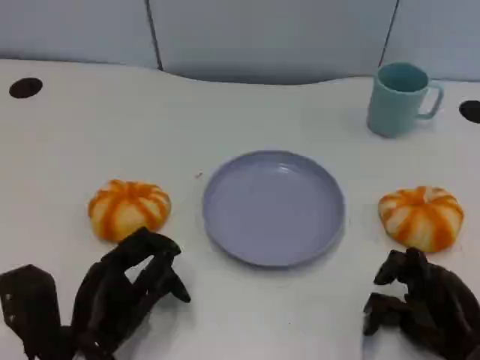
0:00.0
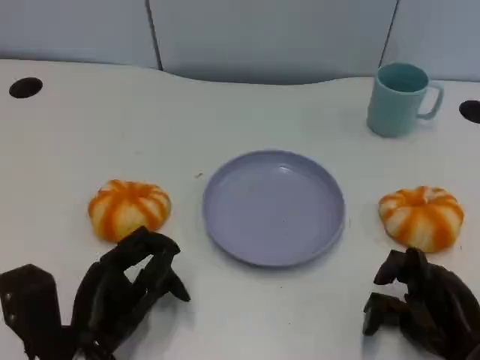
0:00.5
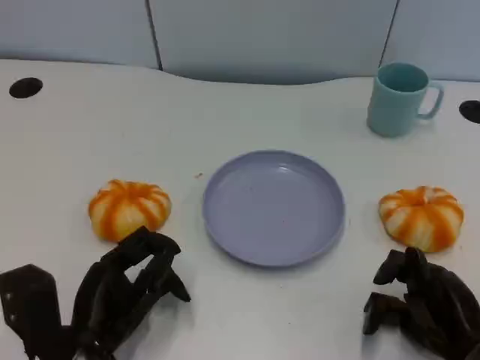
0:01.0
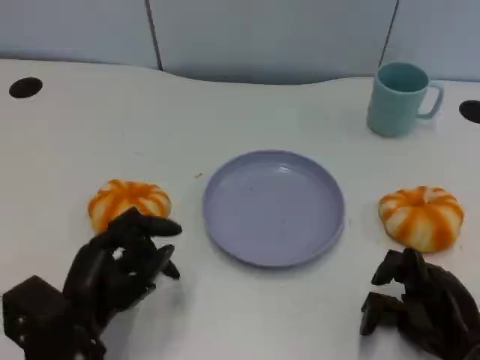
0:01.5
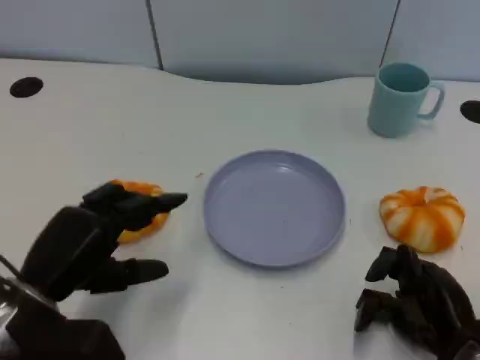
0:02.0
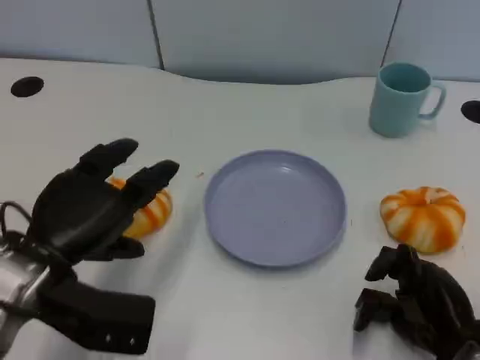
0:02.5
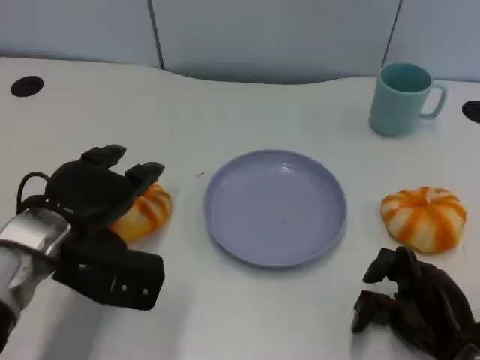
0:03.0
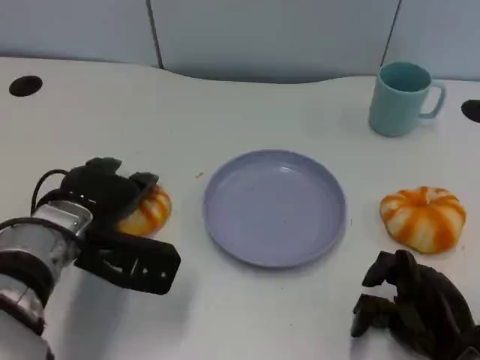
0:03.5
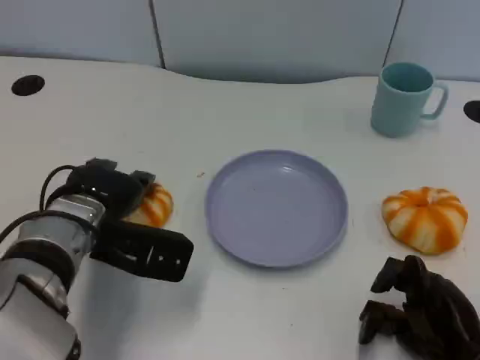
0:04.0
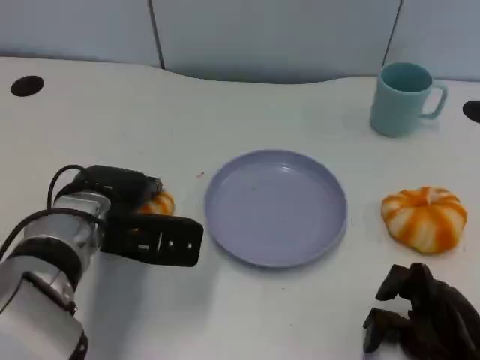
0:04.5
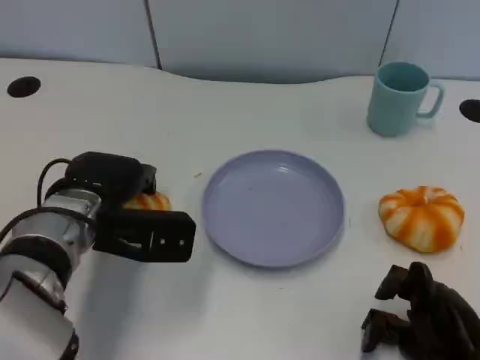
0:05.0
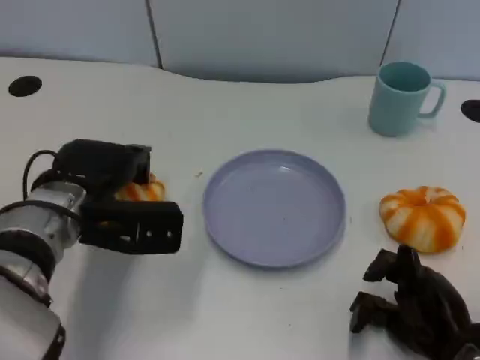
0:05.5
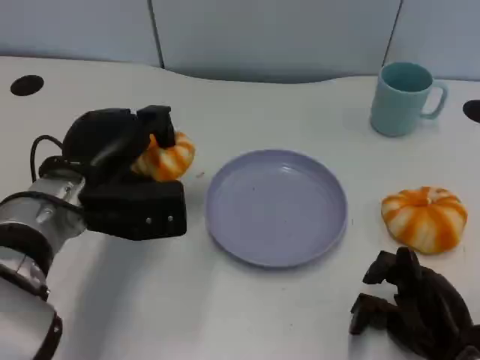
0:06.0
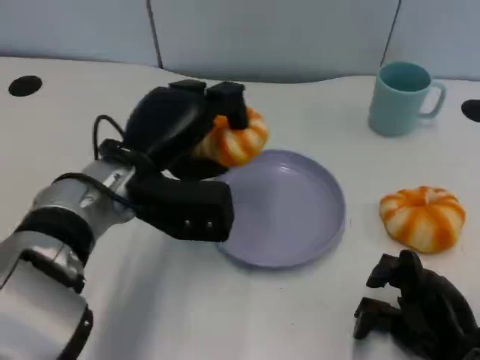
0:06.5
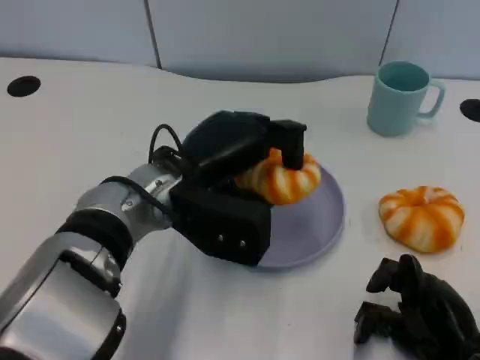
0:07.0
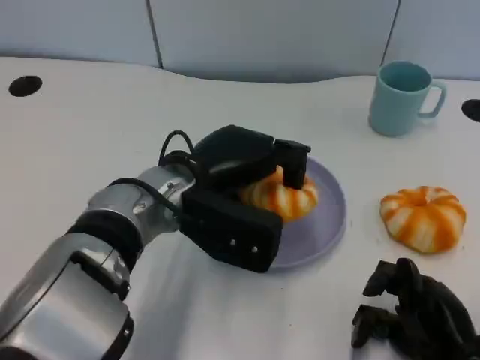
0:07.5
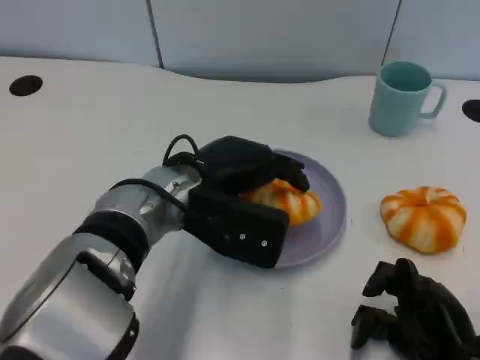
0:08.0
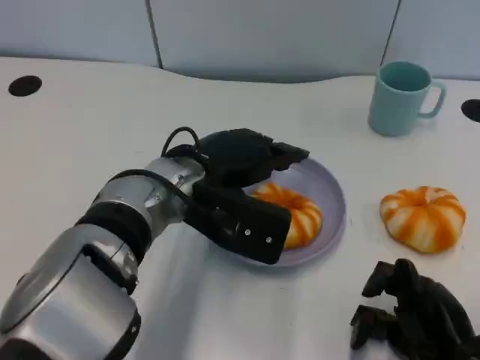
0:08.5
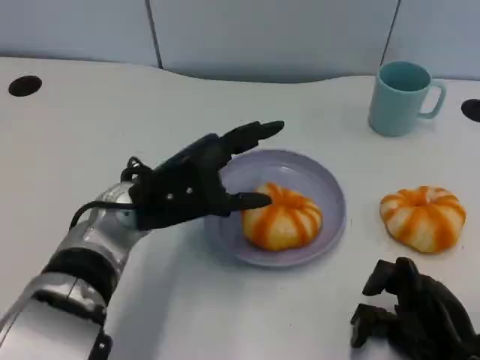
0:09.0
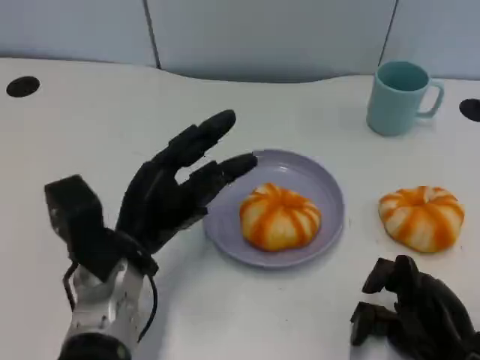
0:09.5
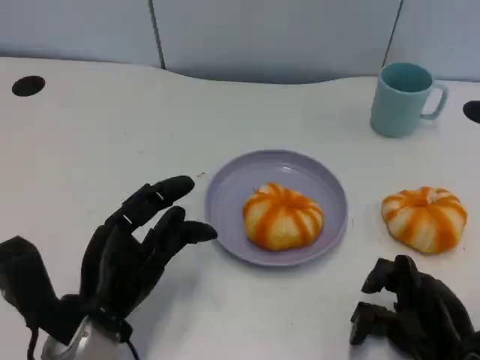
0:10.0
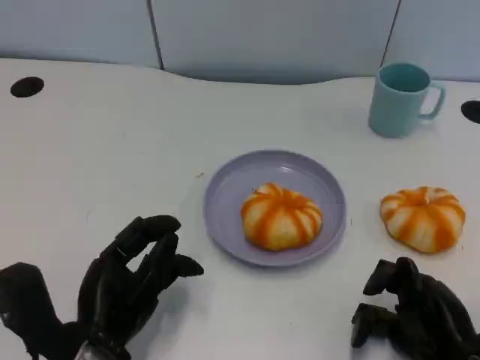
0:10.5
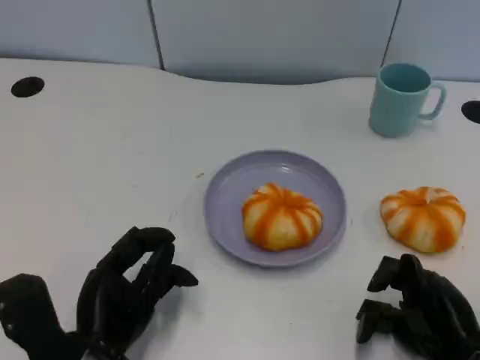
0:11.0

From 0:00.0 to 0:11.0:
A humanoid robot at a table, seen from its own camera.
Task of the whole recording: Grasp the bread from the table and place it into the plate.
From 0:00.0 to 0:02.0: The left hand travels upward by approximately 5 cm.
From 0:02.0 to 0:03.5: The left hand shifts approximately 10 cm forward.
From 0:03.5 to 0:05.5: The hands make only small movements.
From 0:05.5 to 0:07.5: The left hand goes roughly 10 cm to the right.
From 0:07.5 to 0:09.0: The left hand changes place by about 5 cm.
From 0:09.0 to 0:11.0: The left hand heads backward and downward, covering roughly 15 cm.

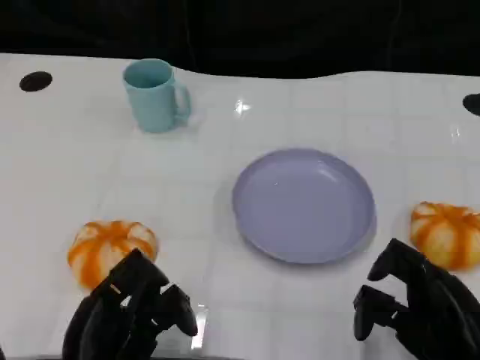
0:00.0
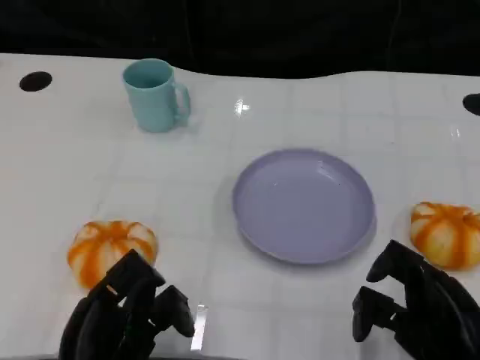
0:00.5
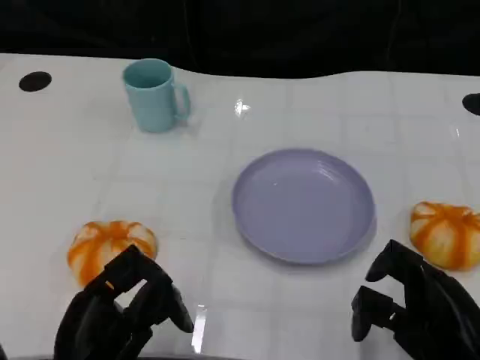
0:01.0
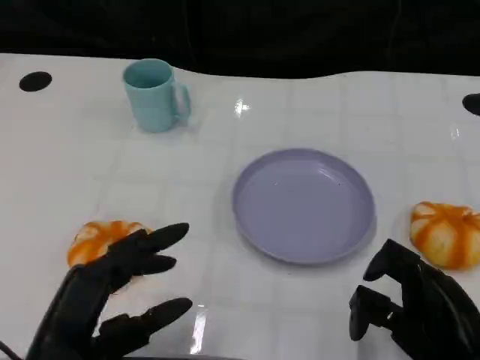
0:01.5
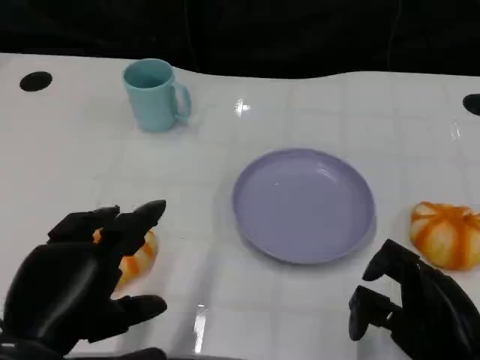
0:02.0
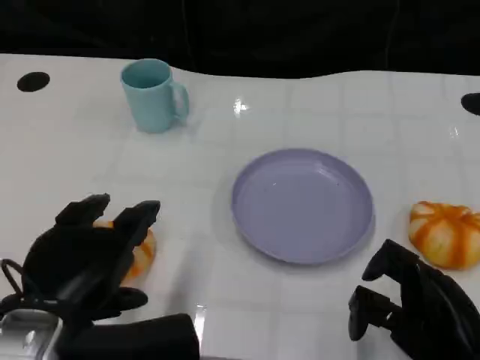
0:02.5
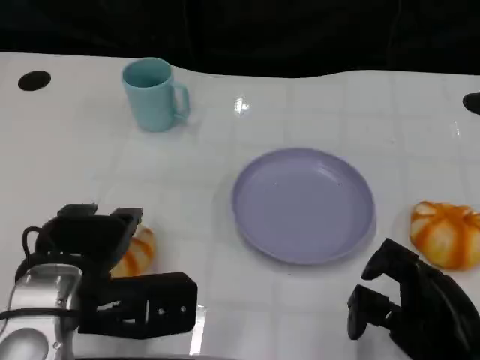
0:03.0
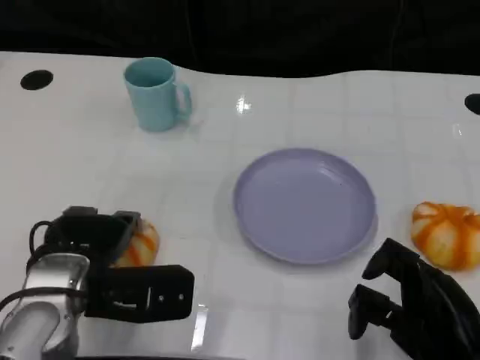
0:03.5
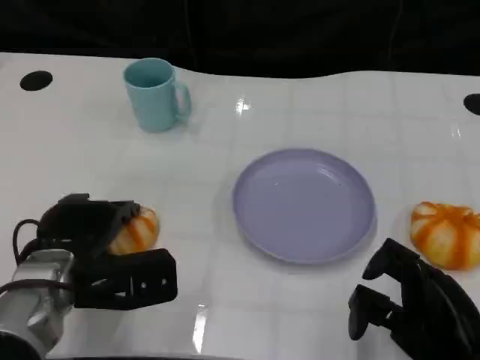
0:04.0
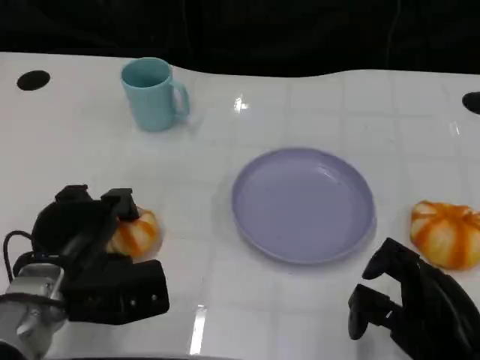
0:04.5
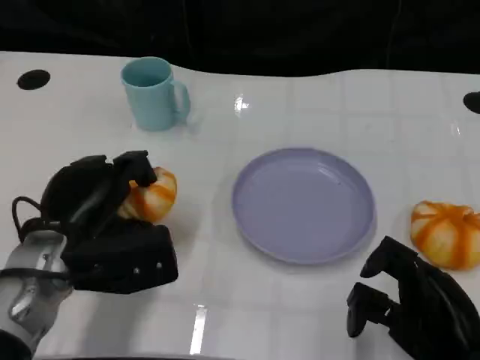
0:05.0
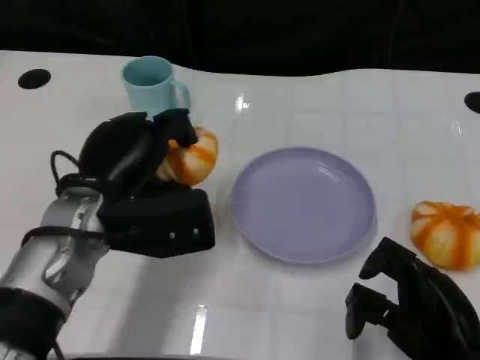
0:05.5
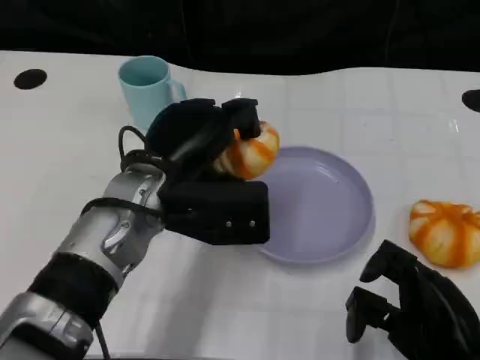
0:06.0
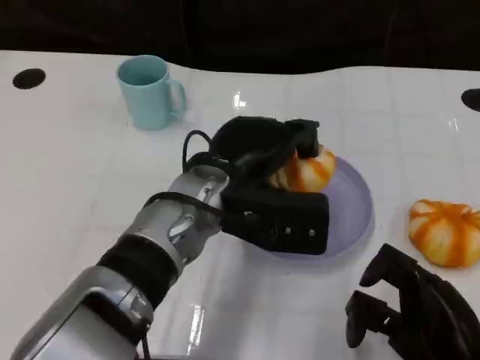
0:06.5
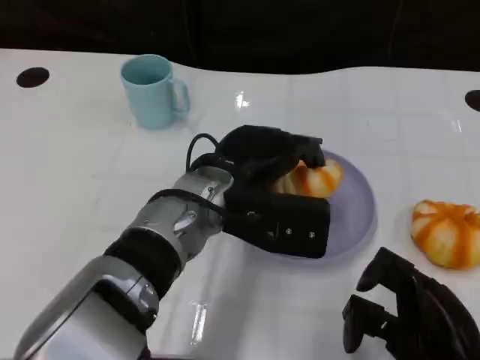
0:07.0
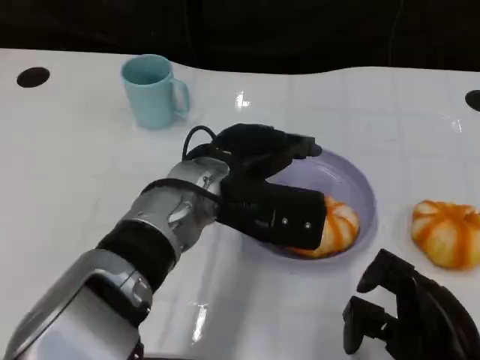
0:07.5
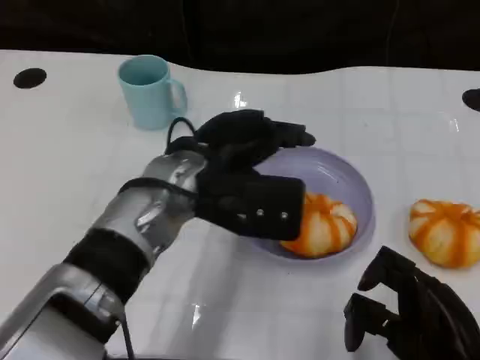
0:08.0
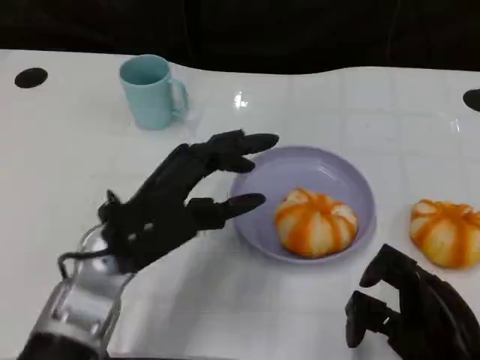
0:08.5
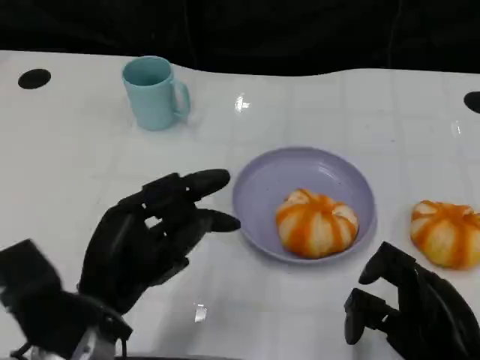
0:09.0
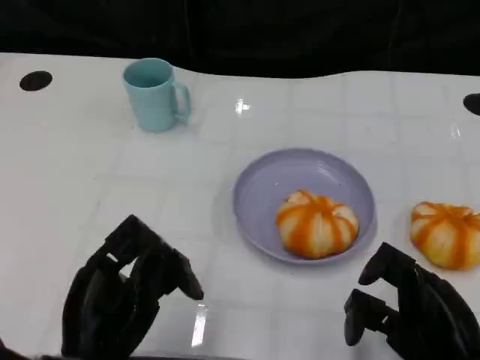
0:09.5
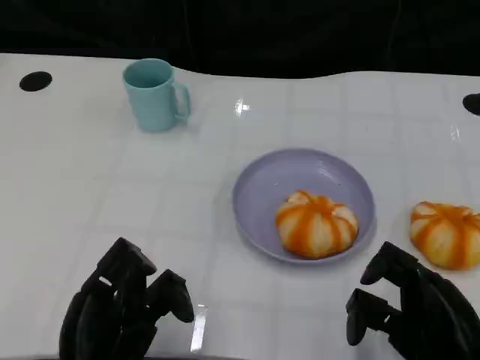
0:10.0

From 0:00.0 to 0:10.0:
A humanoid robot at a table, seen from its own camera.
Task of the whole recording: Grasp the bread from the table and place it into the plate.
From 0:00.0 to 0:02.0: The left hand goes some 10 cm upward.
From 0:02.0 to 0:04.0: The left hand heads forward and downward, covering roughly 15 cm.
From 0:04.0 to 0:06.0: The left hand shifts approximately 15 cm to the right and upward.
From 0:08.0 to 0:10.0: The left hand goes roughly 20 cm backward, downward and to the left.

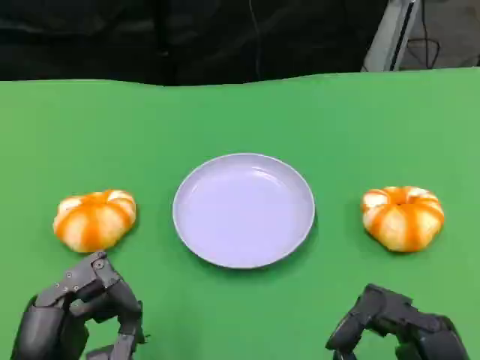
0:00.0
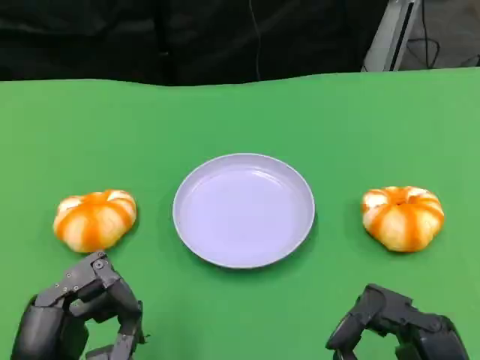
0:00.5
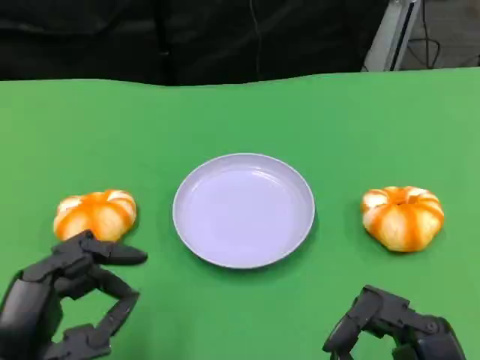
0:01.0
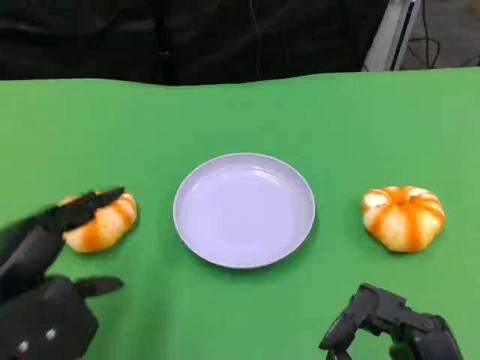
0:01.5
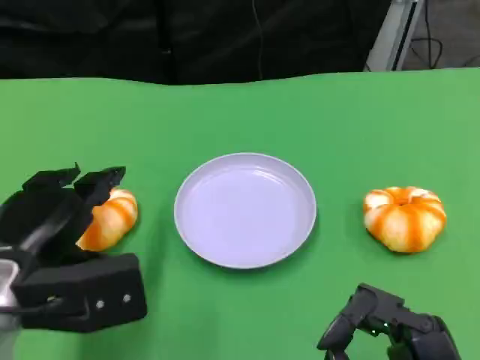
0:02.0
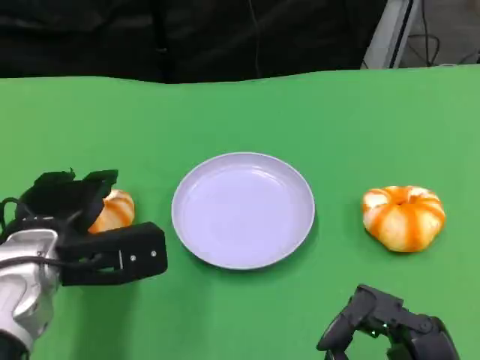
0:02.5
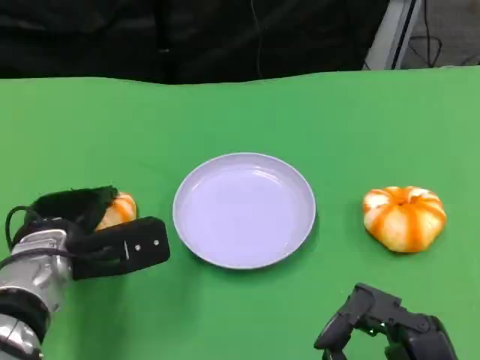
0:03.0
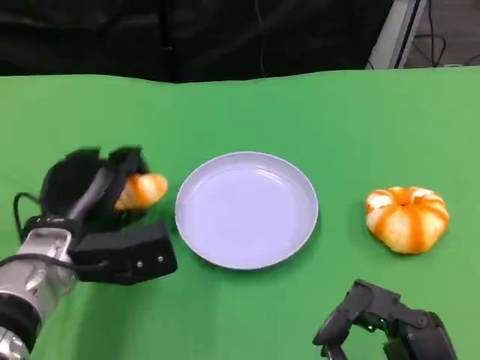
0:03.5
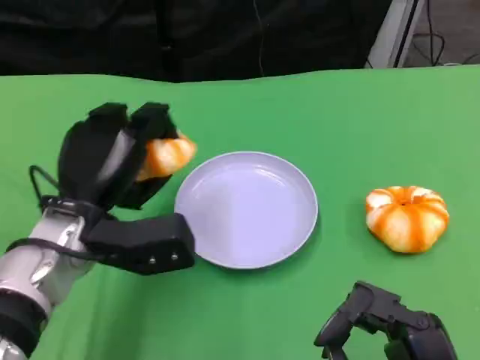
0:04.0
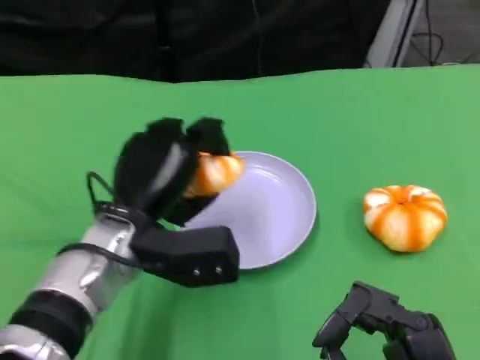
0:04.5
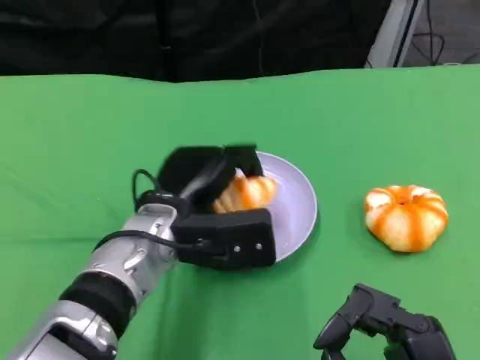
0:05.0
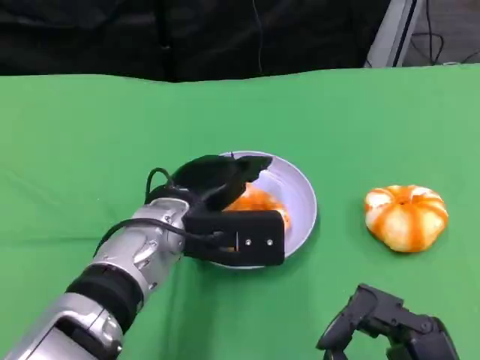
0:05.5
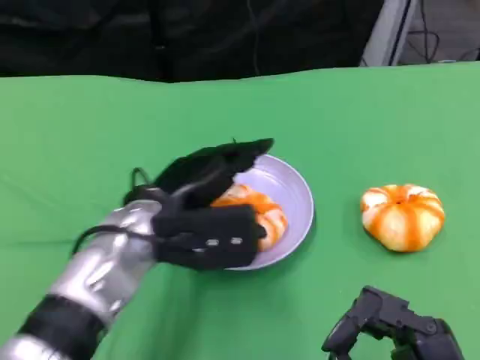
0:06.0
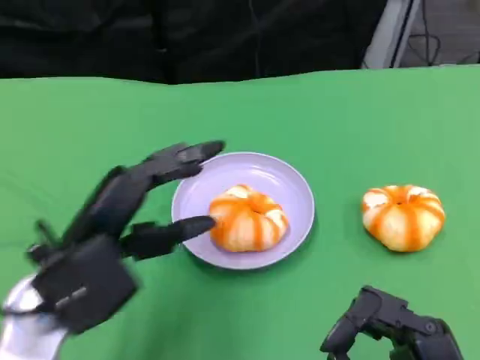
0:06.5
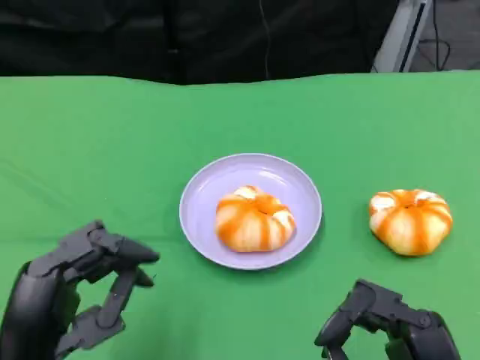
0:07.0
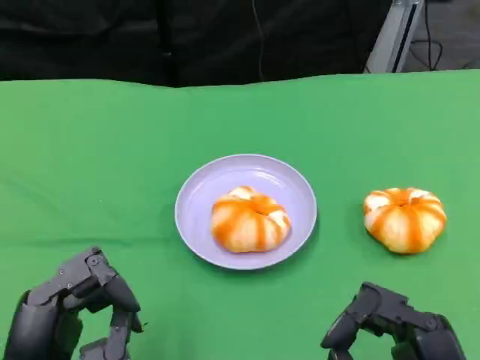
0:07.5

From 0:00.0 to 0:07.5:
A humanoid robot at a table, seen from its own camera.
Task of the whole recording: Grasp the bread from the table and place it into the plate.
From 0:00.0 to 0:02.0: The left hand moves forward, some 10 cm.
From 0:02.0 to 0:04.0: The left hand travels forward and to the right by approximately 10 cm.
From 0:04.0 to 0:05.5: The left hand heads to the right, covering some 10 cm.
From 0:05.5 to 0:07.5: The left hand heads backward and to the left, covering about 20 cm.
